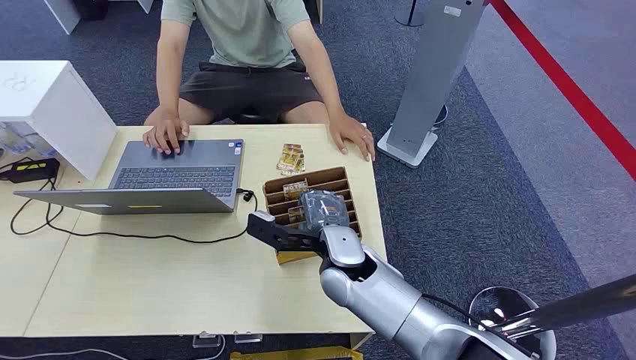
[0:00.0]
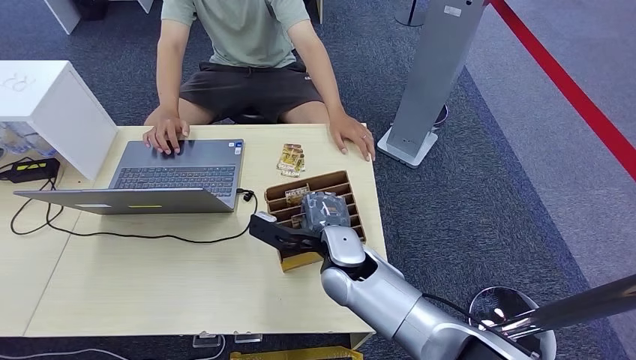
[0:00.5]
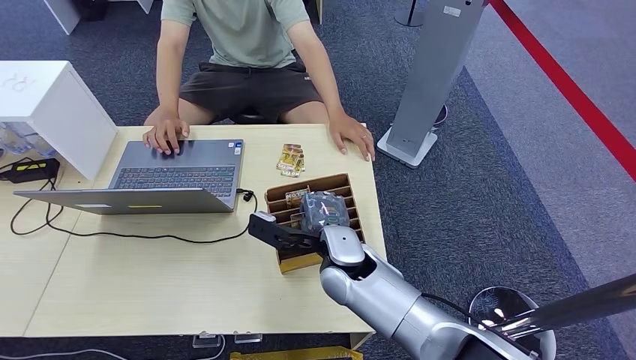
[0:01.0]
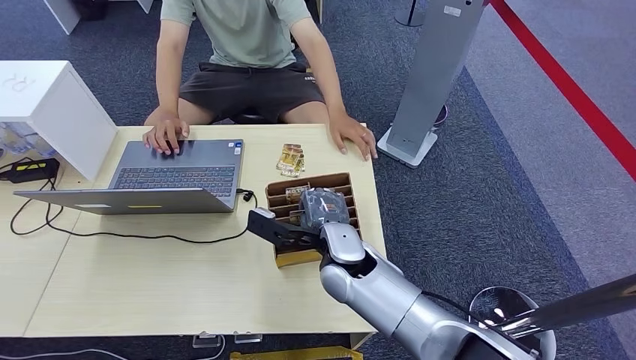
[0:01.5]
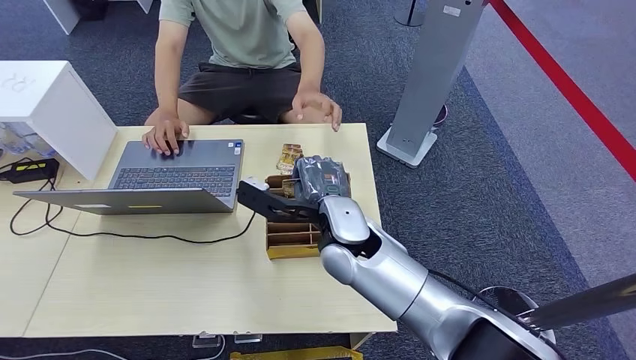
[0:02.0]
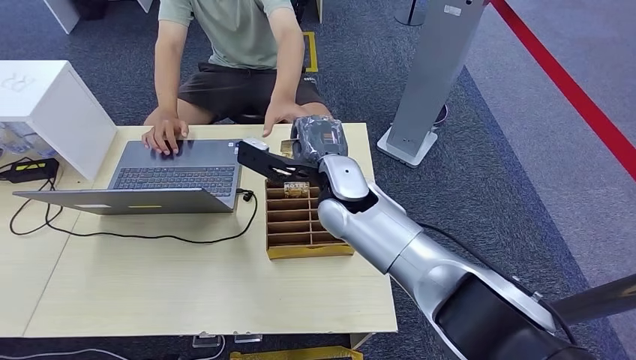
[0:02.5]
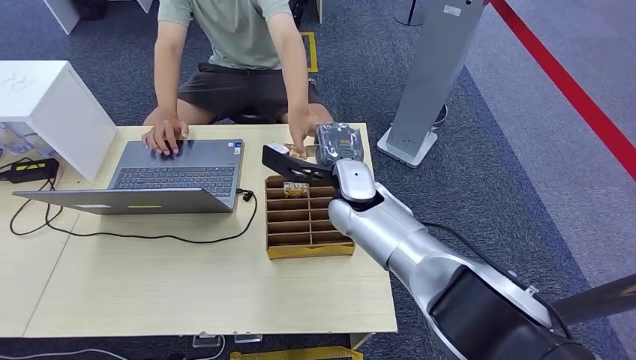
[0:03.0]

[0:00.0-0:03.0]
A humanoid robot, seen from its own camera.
Step, 0:00.0 to 0:02.0: Pick up the key card from the card box.
Step, 0:02.5 to 0:03.0: Hand the key card to the target.
0:01.5 to 0:03.0: The right hand is displaced forward and upward by about 10 cm.
